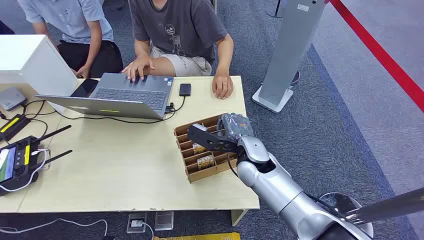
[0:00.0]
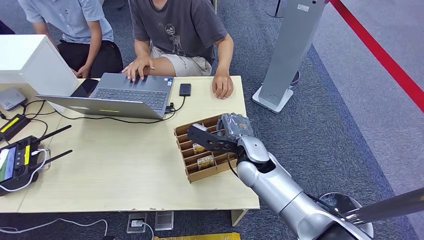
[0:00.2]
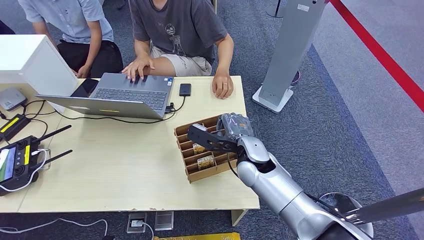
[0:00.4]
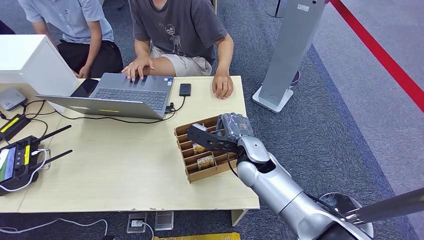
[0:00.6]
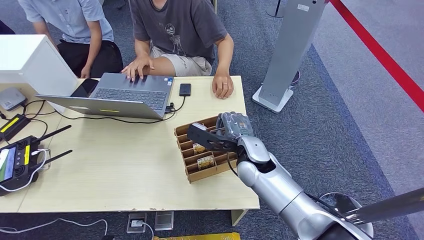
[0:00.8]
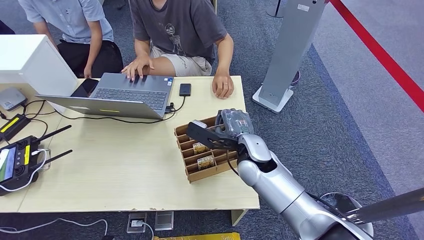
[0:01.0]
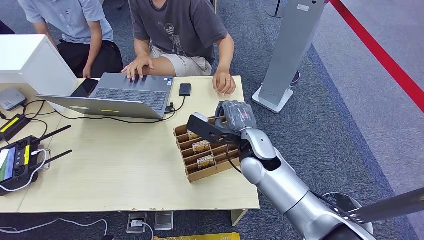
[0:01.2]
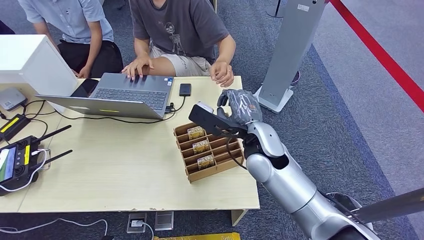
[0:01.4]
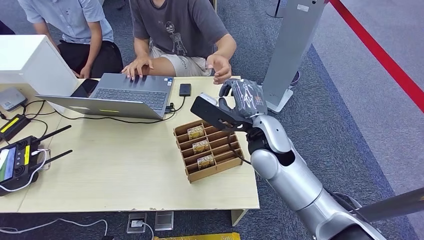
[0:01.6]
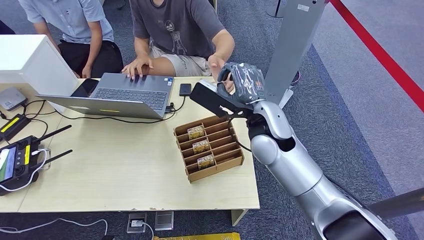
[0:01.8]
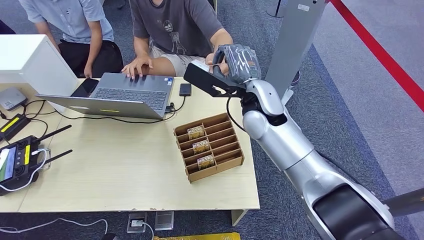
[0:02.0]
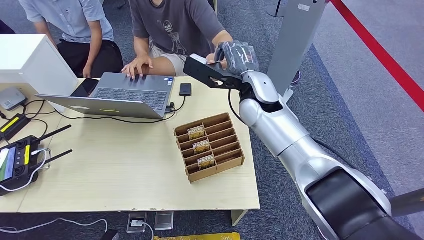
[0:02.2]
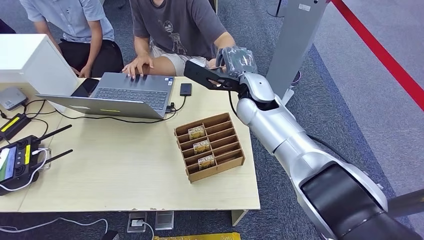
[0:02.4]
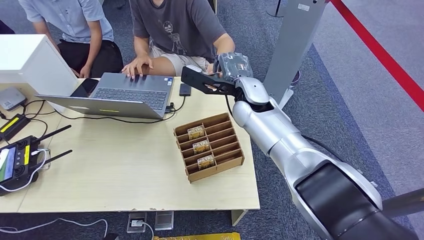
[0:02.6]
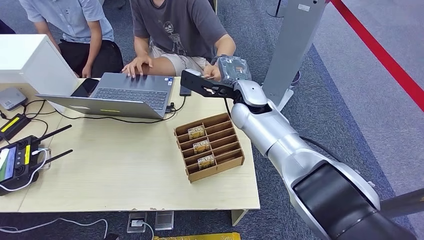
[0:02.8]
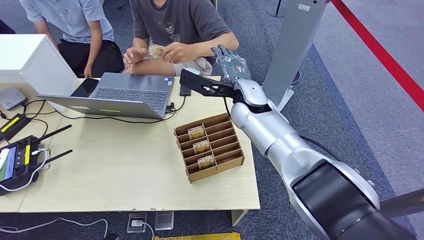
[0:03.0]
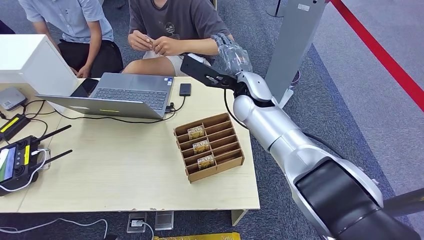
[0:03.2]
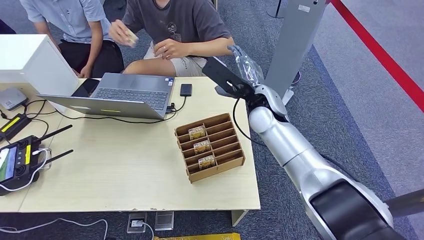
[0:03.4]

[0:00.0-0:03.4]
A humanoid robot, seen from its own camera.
Step, 0:00.0 to 0:01.6: Pick up the key card from the card box.
Step, 0:01.8 to 0:03.4: Hand the key card to the target.
0:01.6 to 0:03.4: The right hand travels forward by roughly 10 cm.
